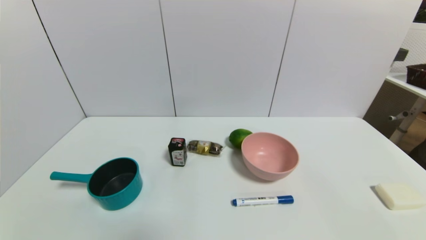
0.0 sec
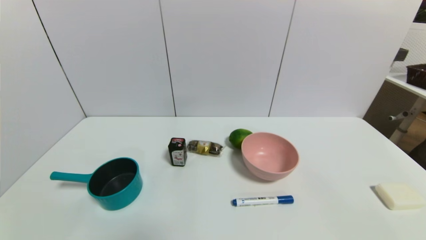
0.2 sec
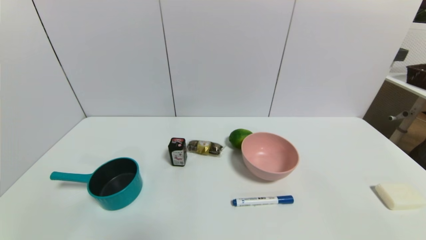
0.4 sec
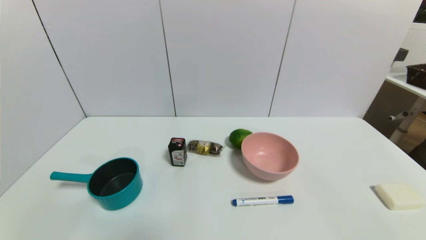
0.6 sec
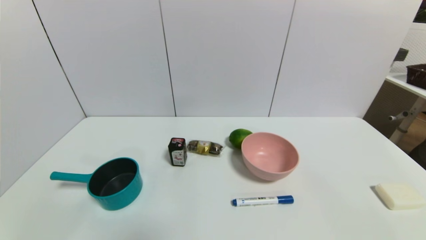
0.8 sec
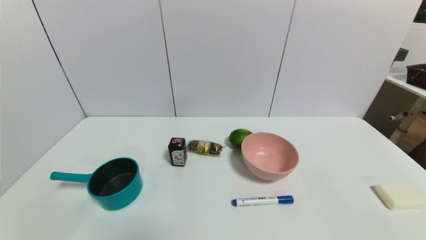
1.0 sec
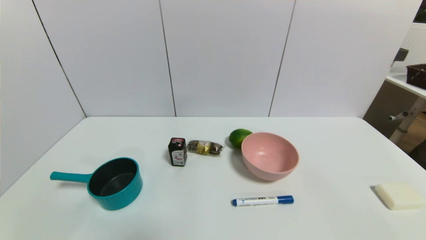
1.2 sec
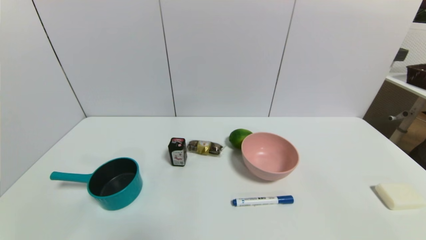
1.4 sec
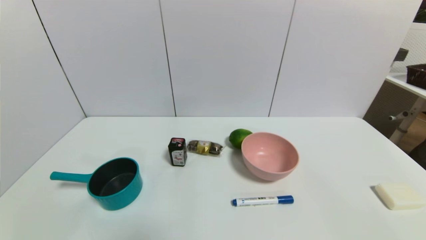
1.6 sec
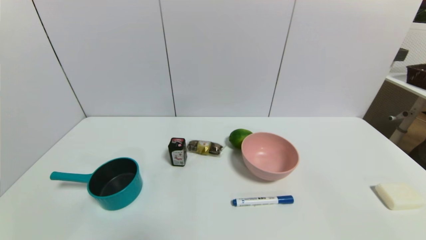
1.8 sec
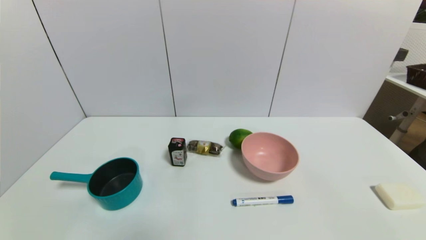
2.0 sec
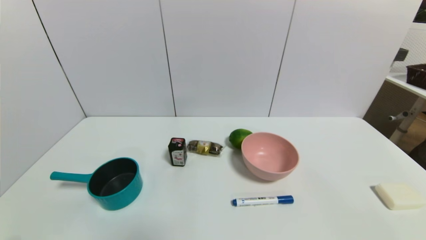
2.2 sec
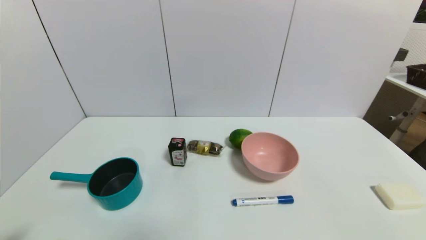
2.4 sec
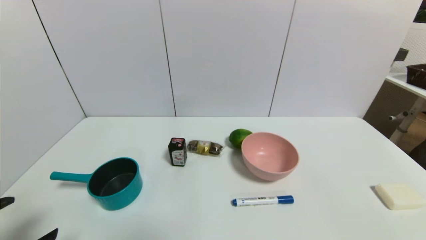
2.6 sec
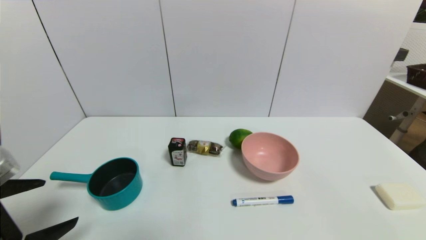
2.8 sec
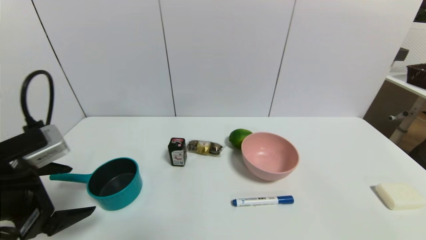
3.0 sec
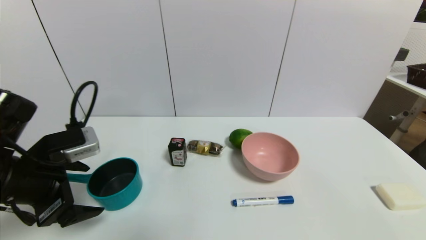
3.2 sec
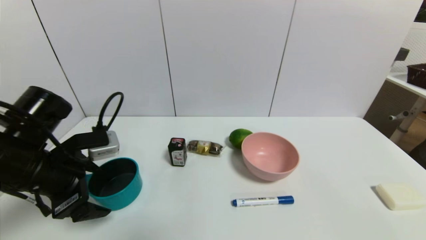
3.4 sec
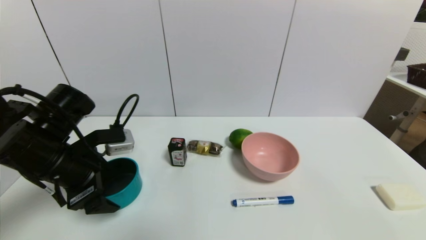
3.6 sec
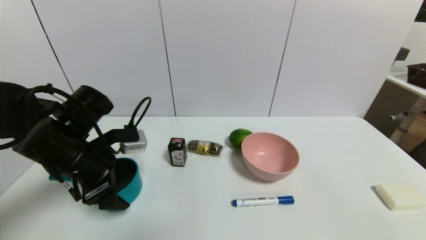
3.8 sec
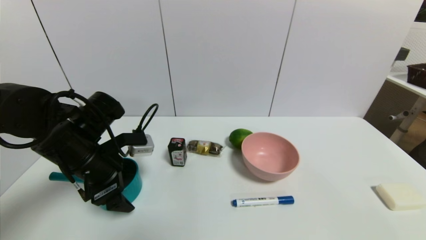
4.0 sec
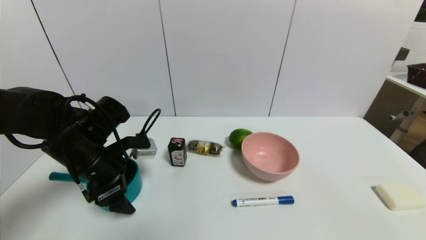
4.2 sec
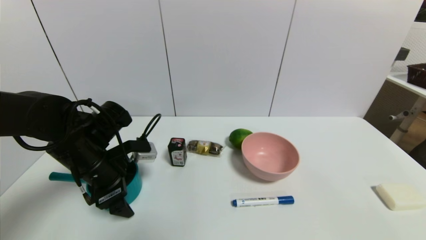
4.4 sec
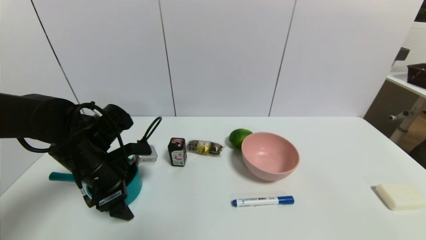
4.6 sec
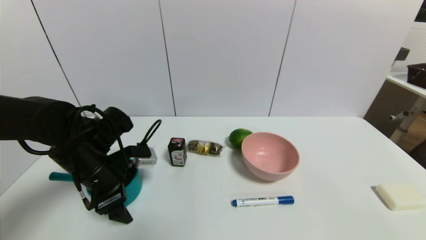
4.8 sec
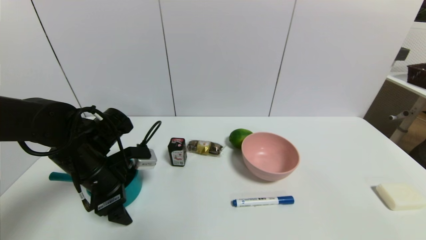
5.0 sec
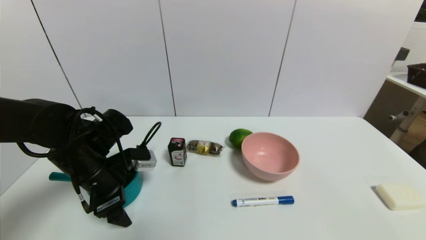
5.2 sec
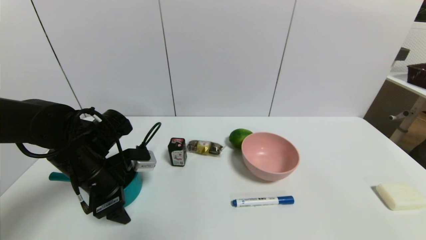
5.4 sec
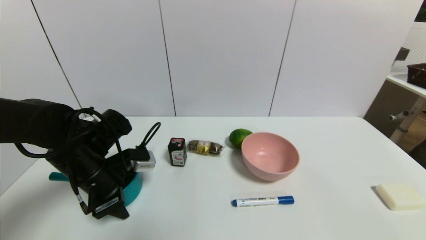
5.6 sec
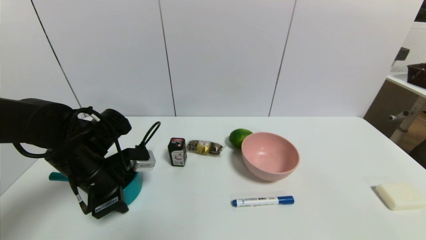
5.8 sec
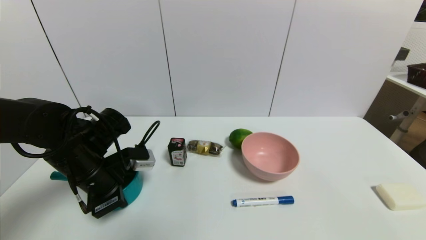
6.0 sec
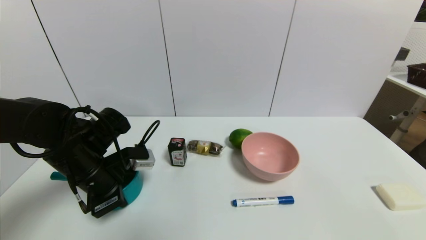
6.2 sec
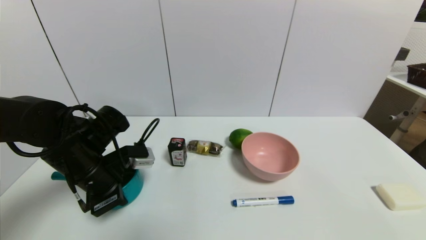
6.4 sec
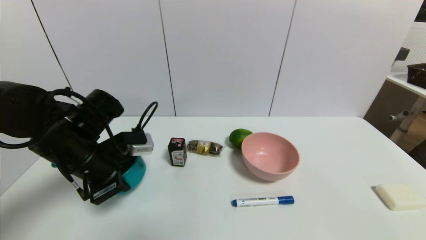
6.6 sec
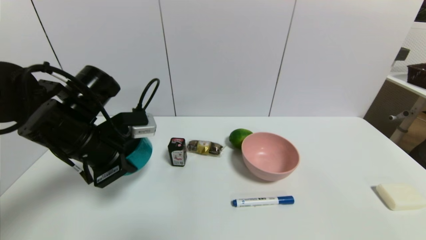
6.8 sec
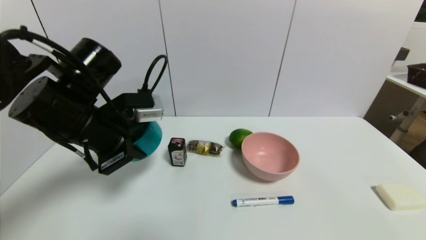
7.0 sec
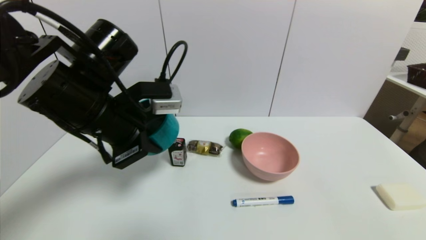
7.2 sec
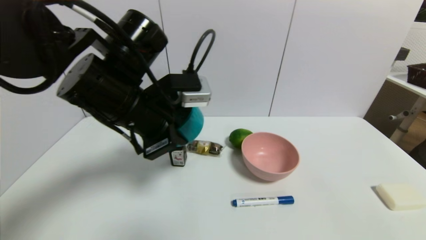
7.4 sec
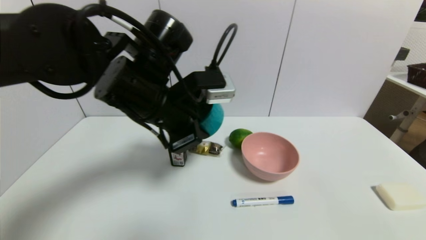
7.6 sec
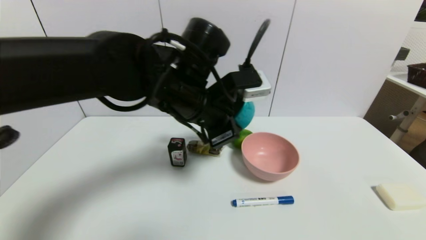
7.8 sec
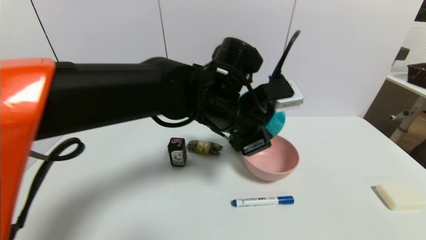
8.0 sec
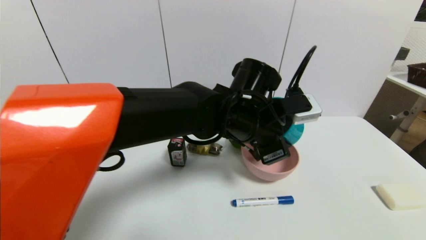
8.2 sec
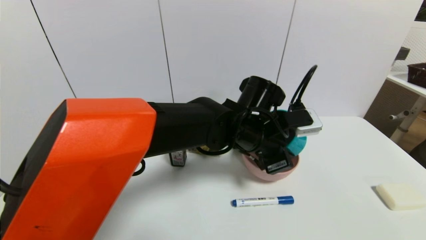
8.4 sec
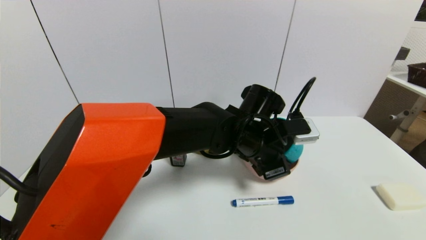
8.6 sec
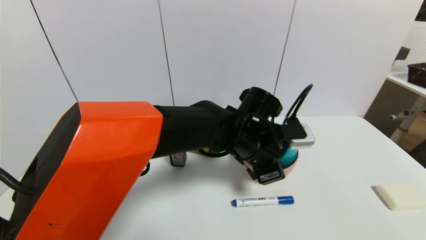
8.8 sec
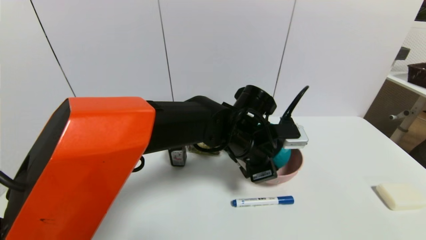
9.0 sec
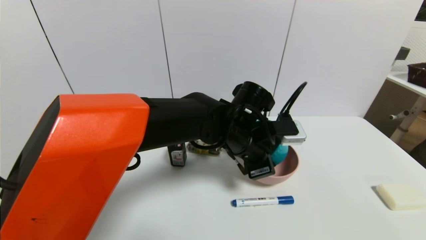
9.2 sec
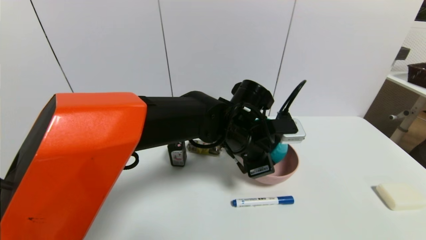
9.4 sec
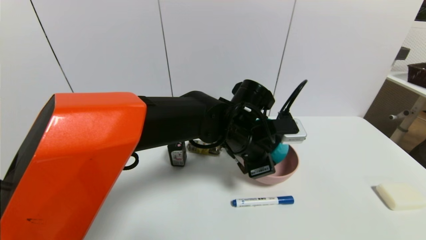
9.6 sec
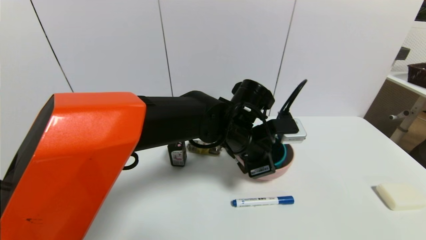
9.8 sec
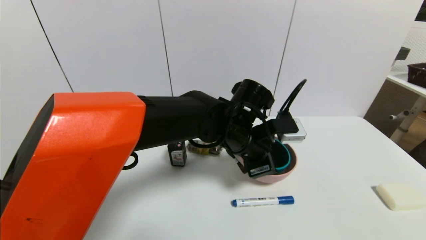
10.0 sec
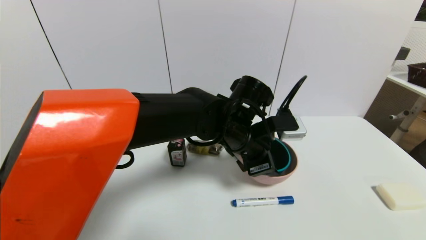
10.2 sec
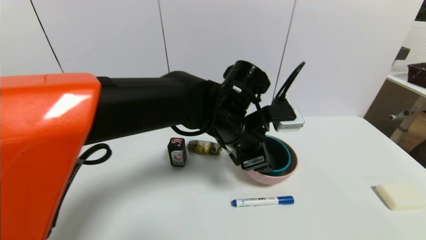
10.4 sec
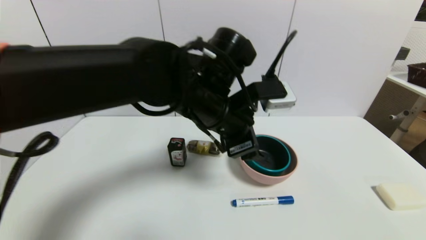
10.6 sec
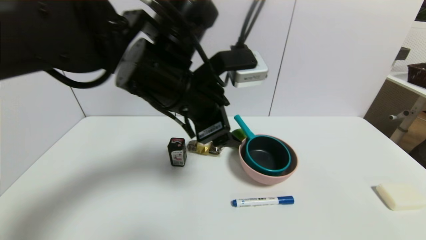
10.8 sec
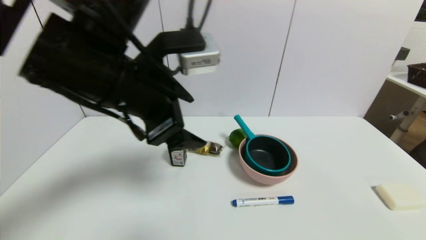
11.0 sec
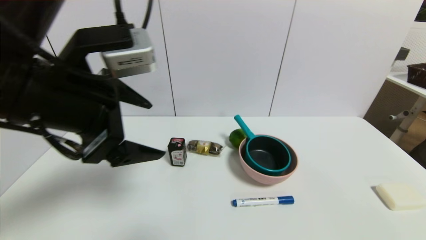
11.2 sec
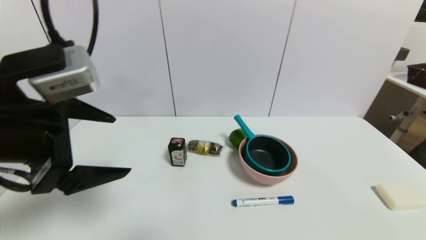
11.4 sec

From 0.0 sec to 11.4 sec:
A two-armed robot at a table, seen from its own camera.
Task of the whole recording: use a gripper to pick the target object and place on the pink bowl.
Step, from 0.0 sec to 6.0 sec: Grasp the blue pot with the left gripper.
Step, from 6.2 sec to 9.8 sec: Place the blue pot on the pink bowl with the left gripper.
From 0.0 sec to 1.4 sec: Both grippers stay about where they are.
From 1.4 sec to 2.8 sec: The left gripper moves upward and forward, some 15 cm.
From 2.8 sec to 4.2 sec: The left gripper heads forward and to the right, covering approximately 20 cm.
From 4.2 sec to 5.6 sec: The left gripper closes.
From 5.6 sec to 7.2 sec: The left gripper travels upward and to the right by some 15 cm, and closes up.
From 7.2 sec to 8.6 sec: The left gripper travels to the right and downward by approximately 25 cm.
From 8.6 sec to 10.0 sec: The left gripper opens up.
From 10.0 sec to 11.4 sec: The left gripper heads to the left, backward and upward, covering some 35 cm, and opens its fingers.

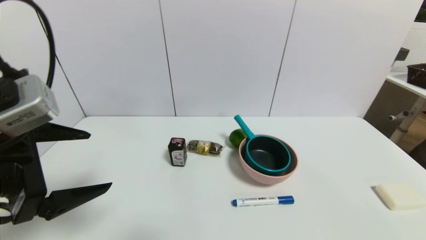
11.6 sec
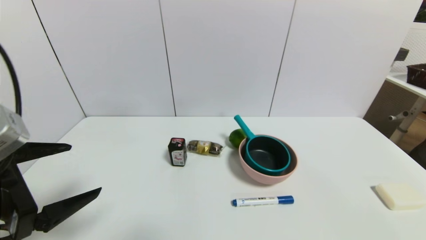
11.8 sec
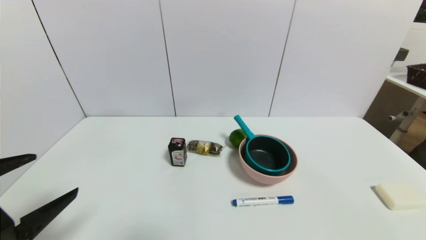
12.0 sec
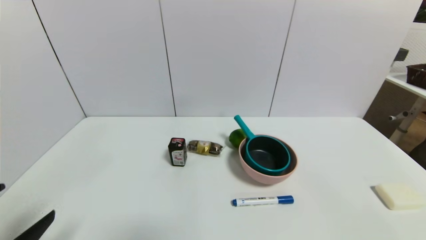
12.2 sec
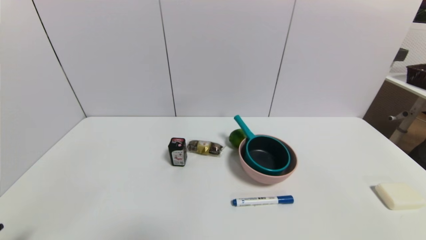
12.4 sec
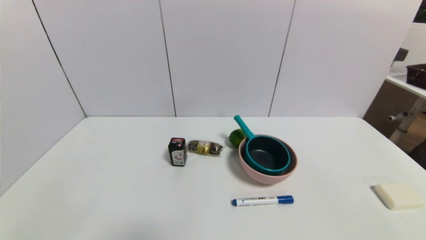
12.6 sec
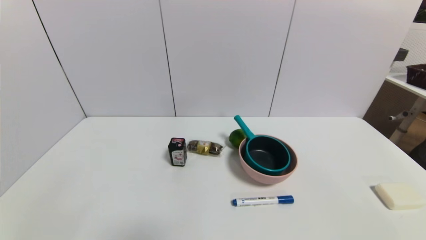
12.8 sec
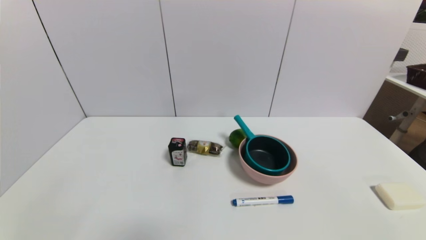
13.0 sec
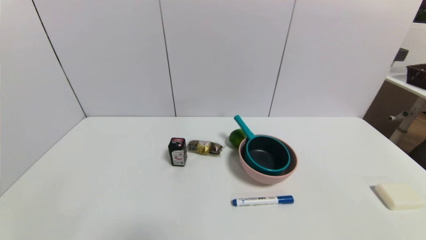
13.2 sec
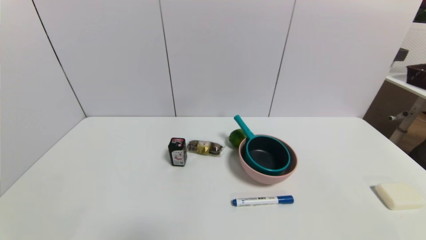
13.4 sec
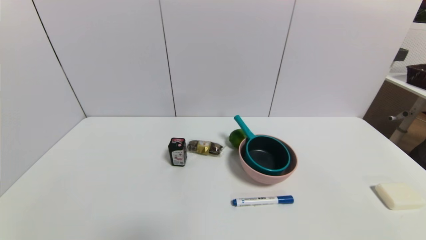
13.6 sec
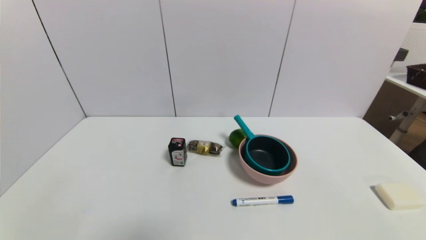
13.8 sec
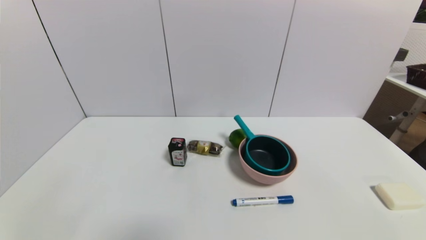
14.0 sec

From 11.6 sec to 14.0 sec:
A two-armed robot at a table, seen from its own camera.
Task of the whole recording: use a gripper to pick the target object and place on the pink bowl.
From 11.6 sec to 12.8 sec: The left gripper travels downward and backward by about 25 cm.
From 12.8 sec to 14.0 sec: Neither gripper changes place.
